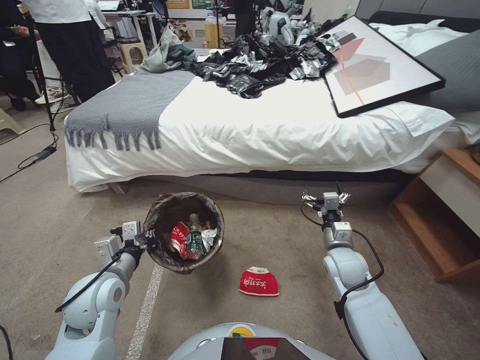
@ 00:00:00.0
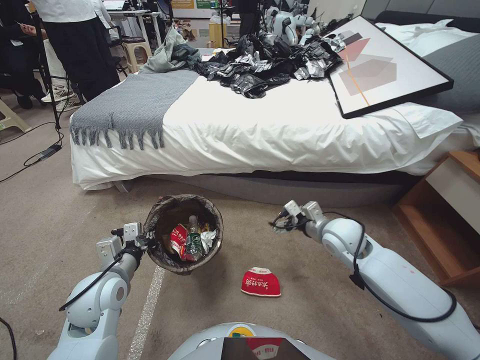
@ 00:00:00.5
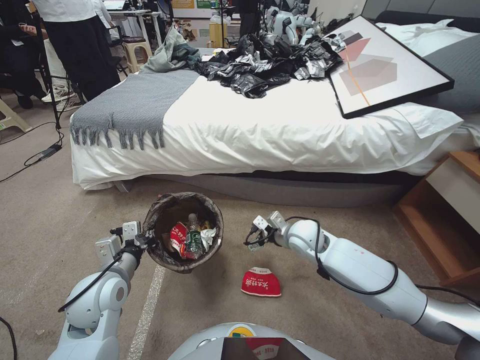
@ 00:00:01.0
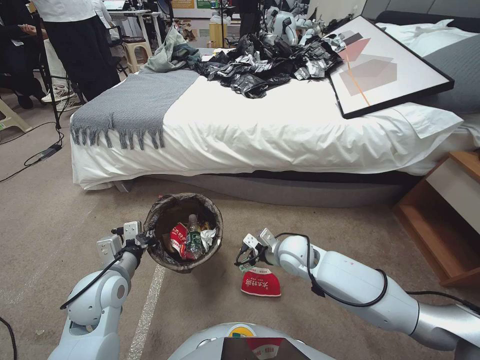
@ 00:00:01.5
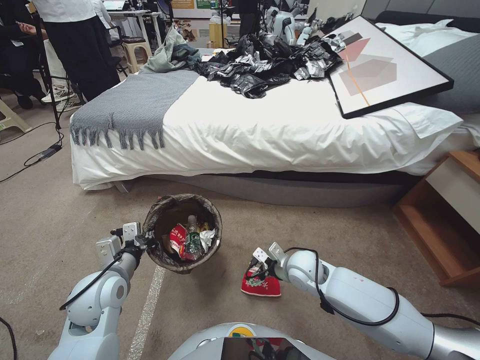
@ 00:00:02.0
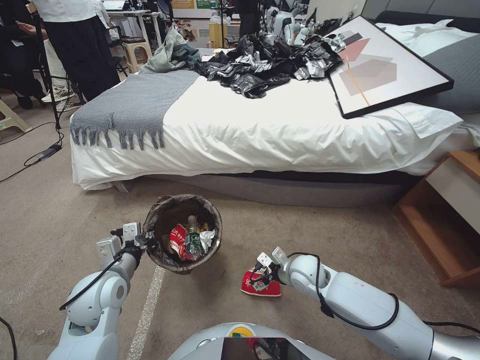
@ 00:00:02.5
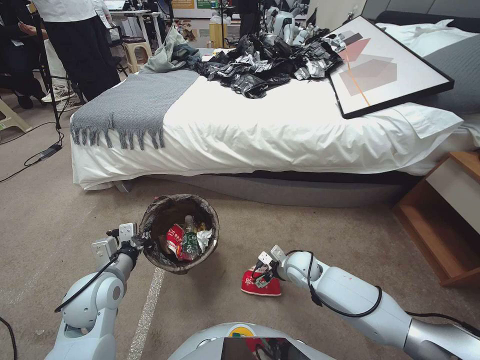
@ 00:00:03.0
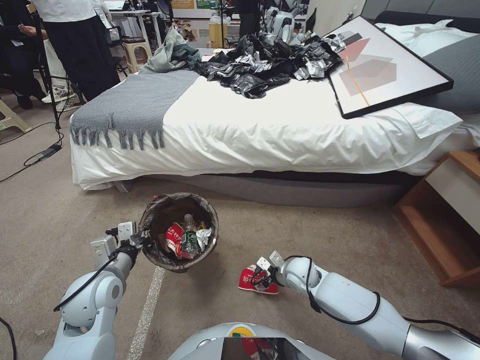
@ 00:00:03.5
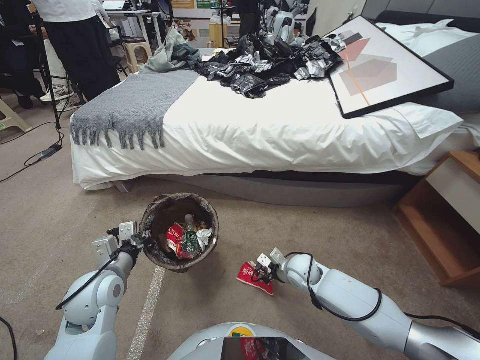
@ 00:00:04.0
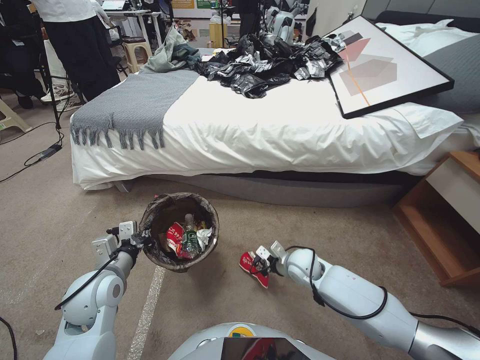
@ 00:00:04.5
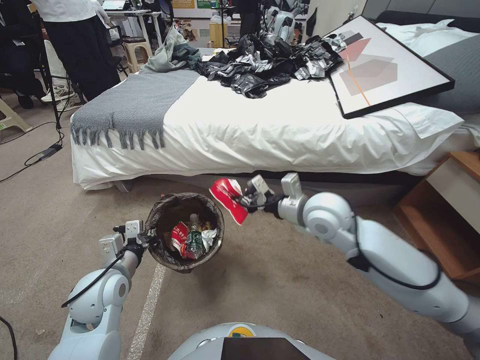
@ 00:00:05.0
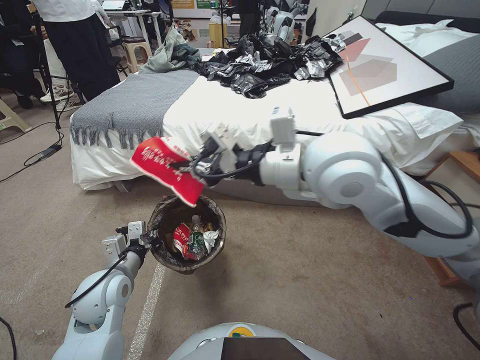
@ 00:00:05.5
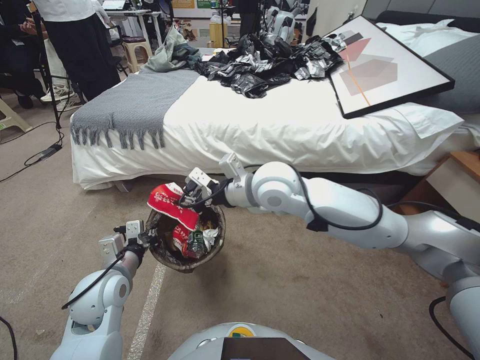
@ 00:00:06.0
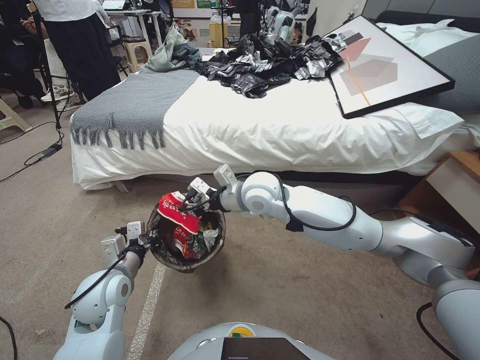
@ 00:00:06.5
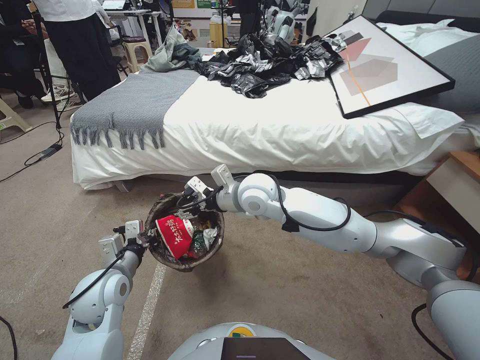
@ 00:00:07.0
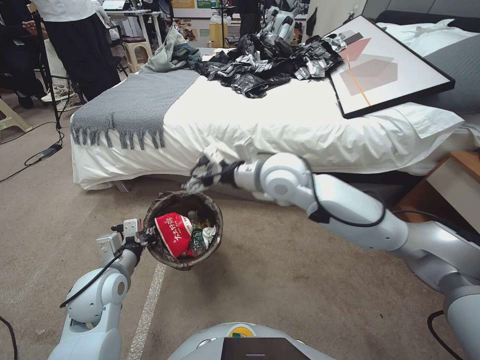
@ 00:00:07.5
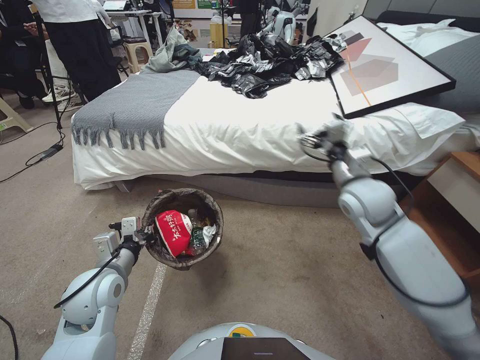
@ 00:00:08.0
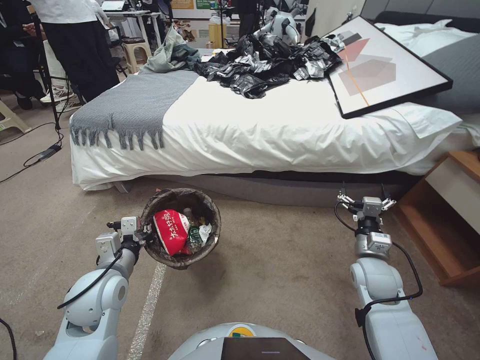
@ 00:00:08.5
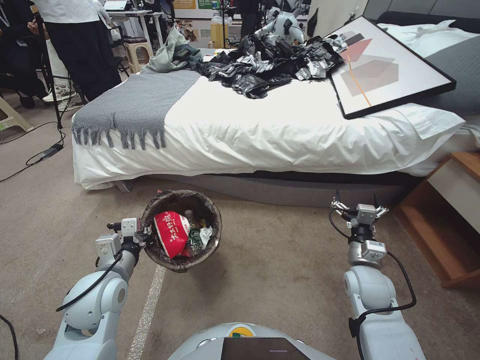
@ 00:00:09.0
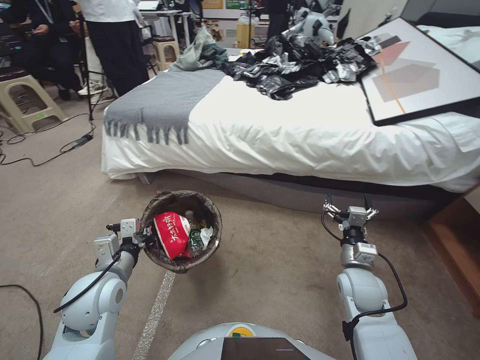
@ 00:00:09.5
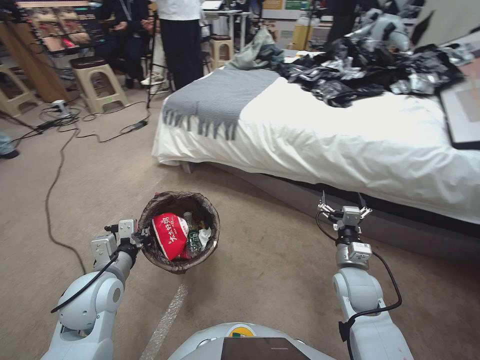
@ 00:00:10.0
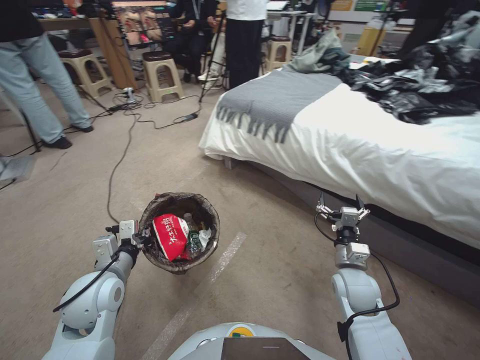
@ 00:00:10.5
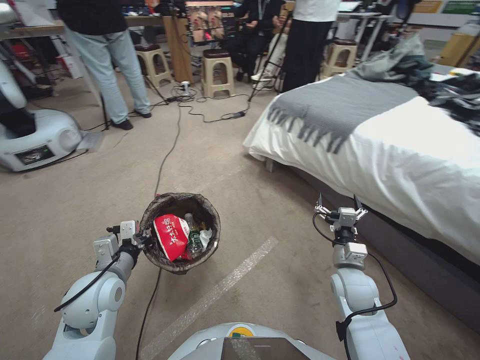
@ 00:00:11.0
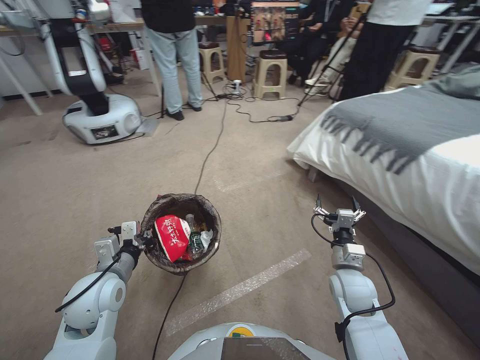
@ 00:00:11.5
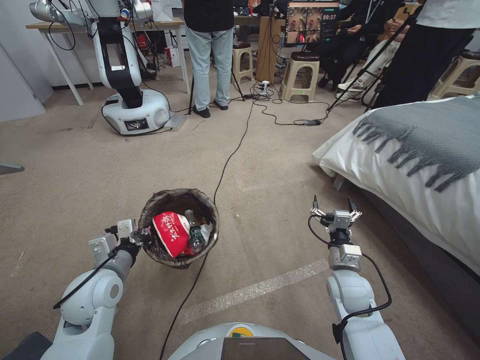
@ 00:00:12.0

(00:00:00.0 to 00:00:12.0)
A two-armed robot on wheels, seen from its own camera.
Task of the whole recording: Pick up the trash bin, then pick up the garbage from the floor and place it into the trash bin.
00:00:00.0 - 00:00:02.0: The right gripper travels to the left by some 10 cm.
00:00:02.0 - 00:00:04.0: The right gripper heads downward, covering approximately 5 cm, and closes its fingers.
00:00:04.0 - 00:00:06.0: The right gripper travels upward by about 35 cm.
00:00:06.0 - 00:00:08.0: The right gripper goes approximately 15 cm to the right, and opens.
00:00:08.0 - 00:00:10.0: The right gripper heads downward and backward, covering about 25 cm.

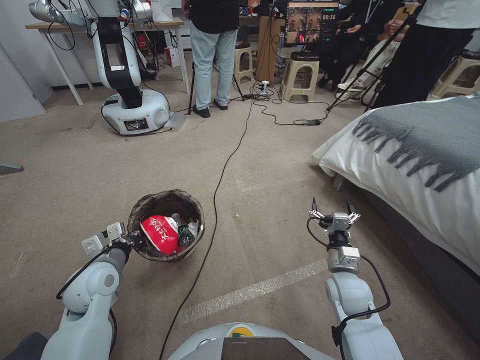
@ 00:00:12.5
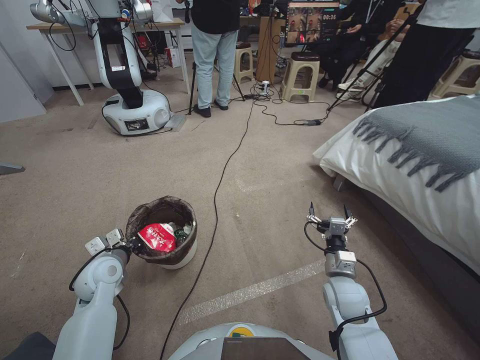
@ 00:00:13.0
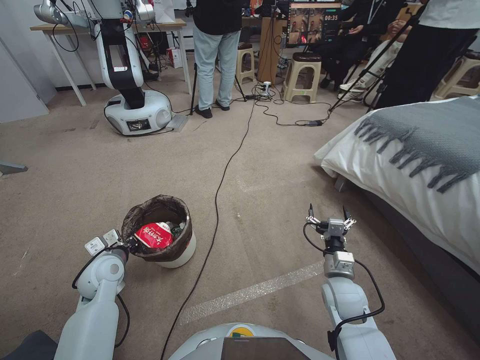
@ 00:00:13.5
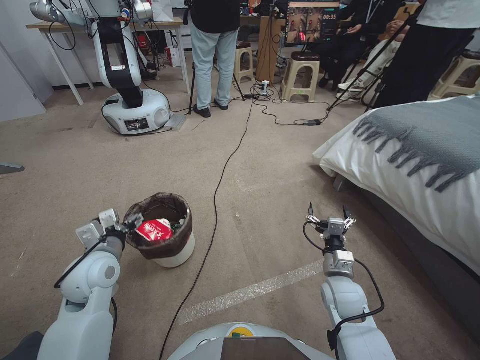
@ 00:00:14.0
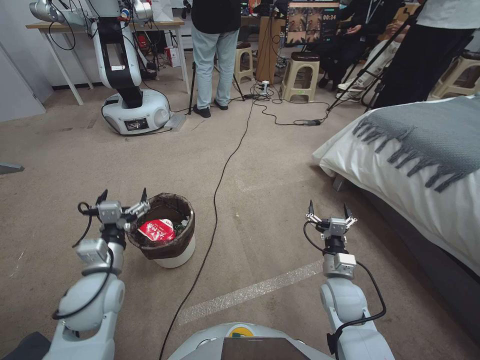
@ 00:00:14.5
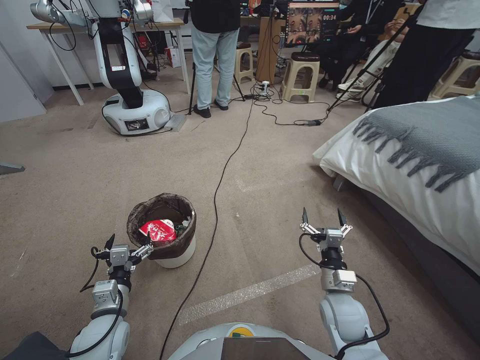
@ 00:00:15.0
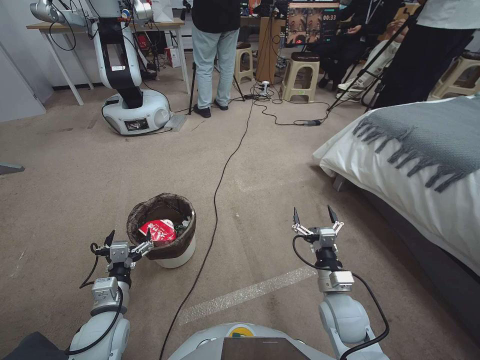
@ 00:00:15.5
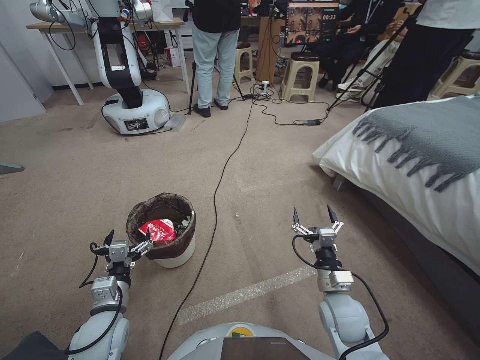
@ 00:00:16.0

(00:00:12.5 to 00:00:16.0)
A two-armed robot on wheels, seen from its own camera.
Task of the whole recording: Pick up the trash bin, then pick up the garbage from the floor and place it into the trash bin.
00:00:12.5 - 00:00:14.5: The left gripper moves some 5 cm downward and comes back, and opens.
00:00:14.5 - 00:00:16.0: The left gripper heads downward and backward, covering approximately 10 cm.
